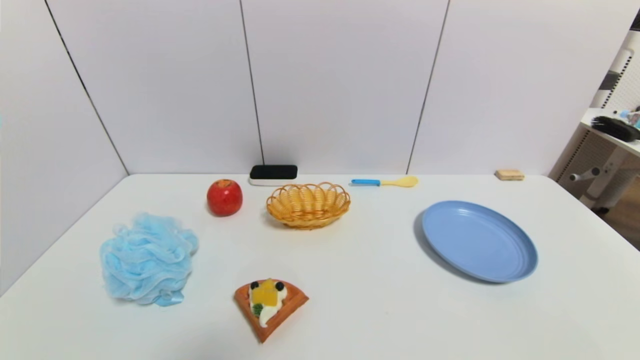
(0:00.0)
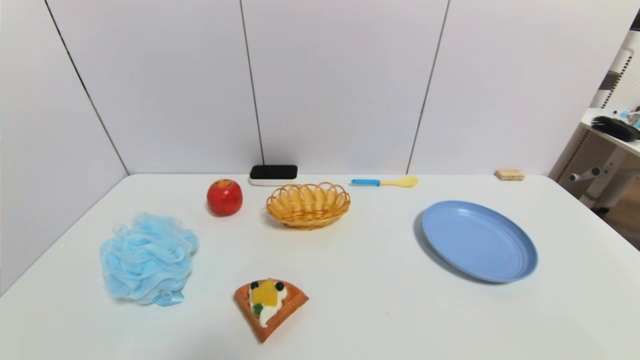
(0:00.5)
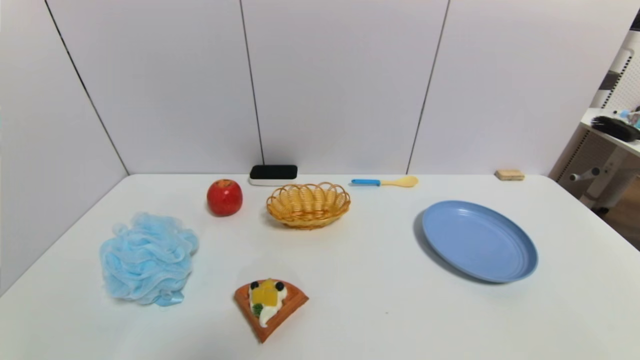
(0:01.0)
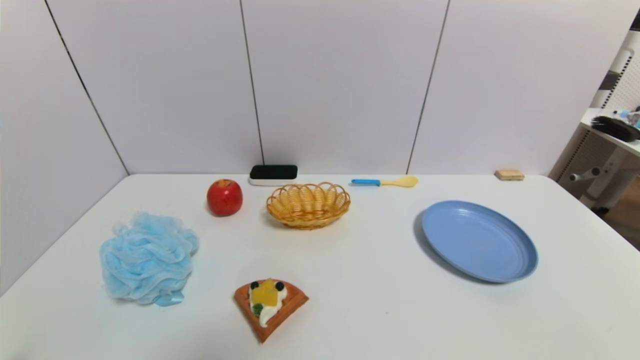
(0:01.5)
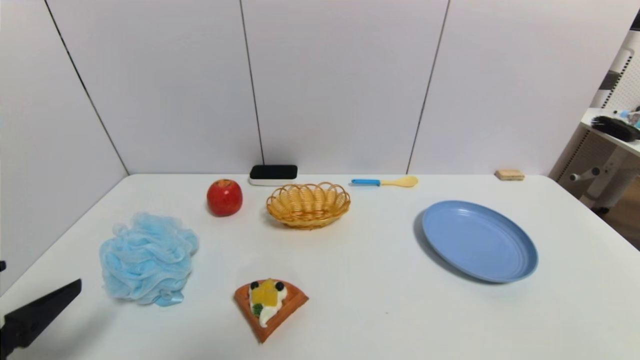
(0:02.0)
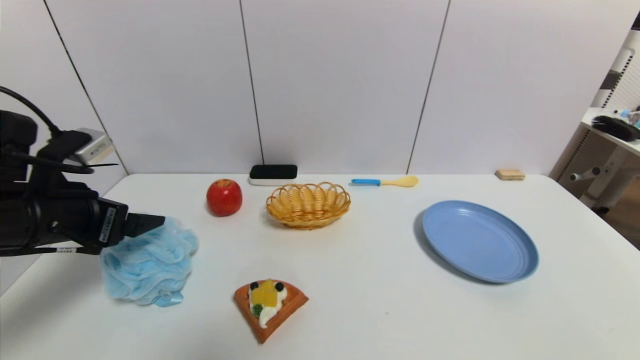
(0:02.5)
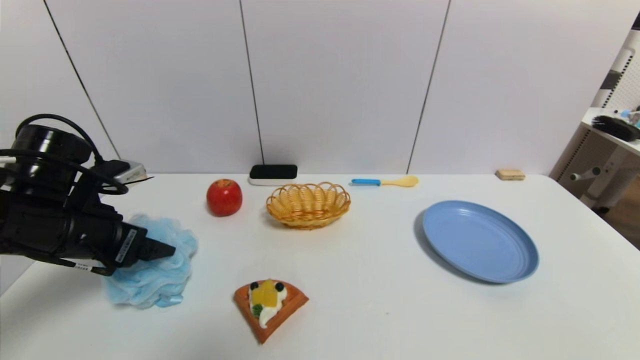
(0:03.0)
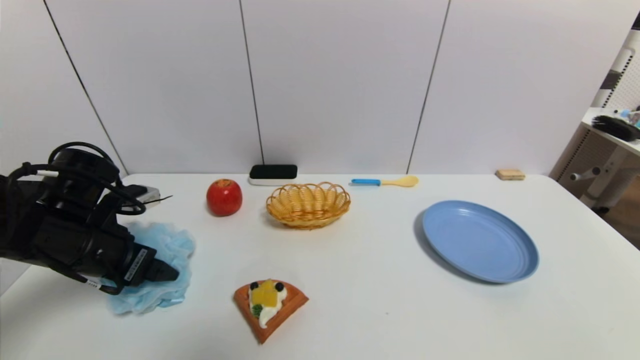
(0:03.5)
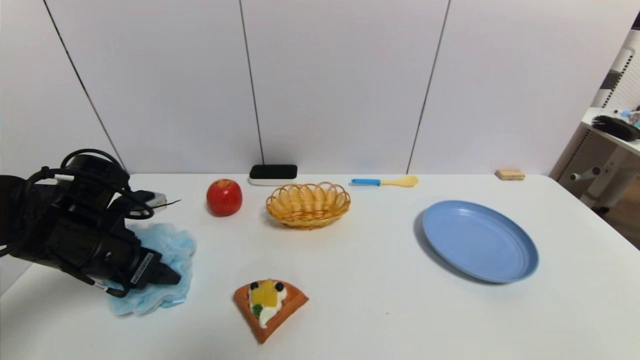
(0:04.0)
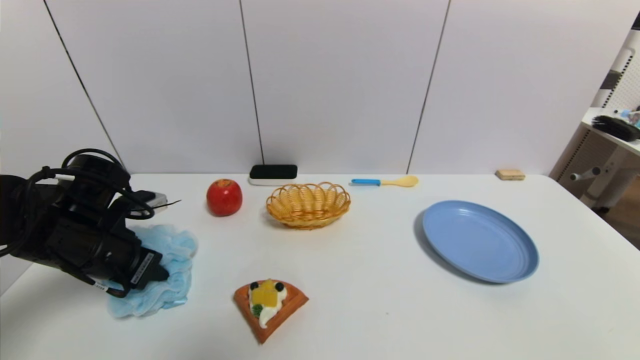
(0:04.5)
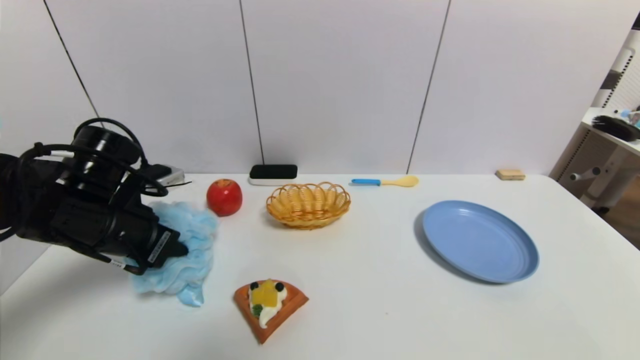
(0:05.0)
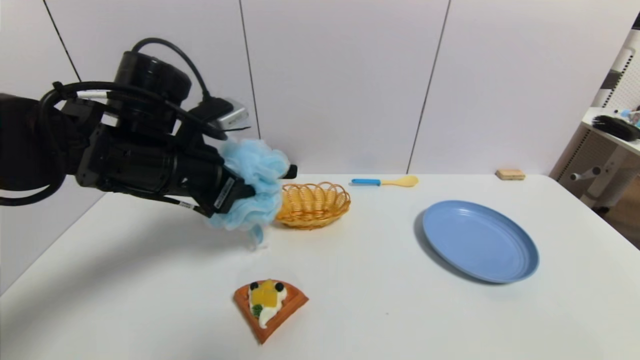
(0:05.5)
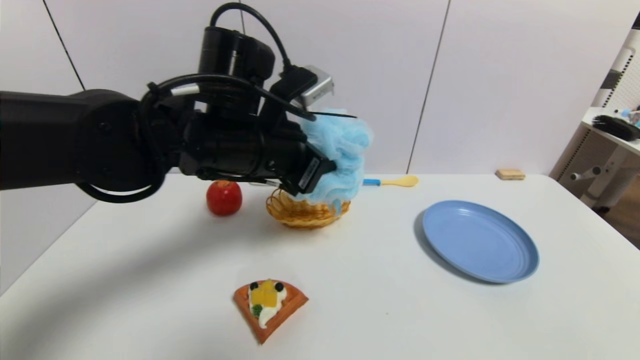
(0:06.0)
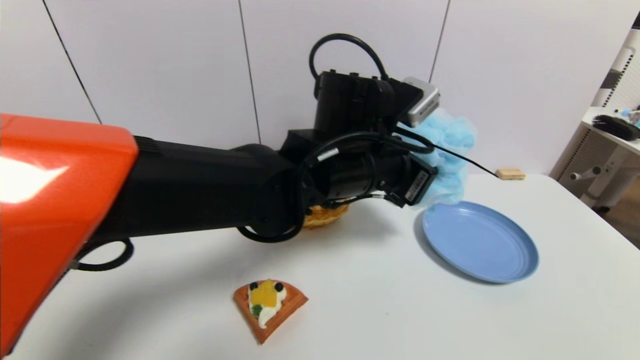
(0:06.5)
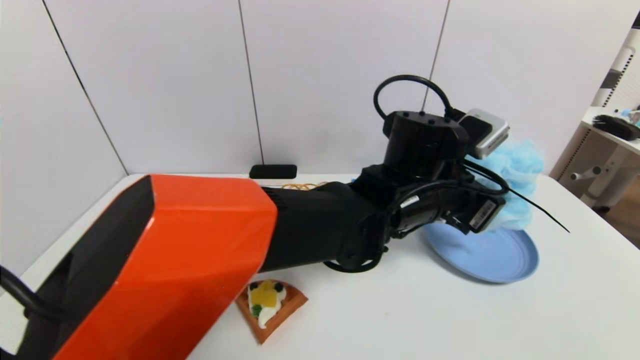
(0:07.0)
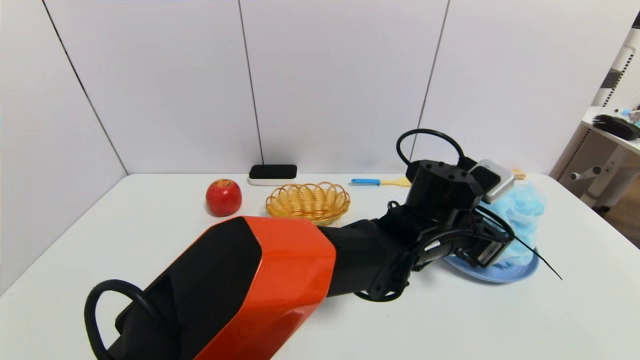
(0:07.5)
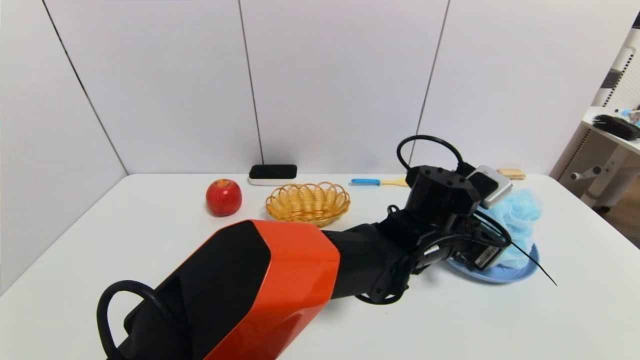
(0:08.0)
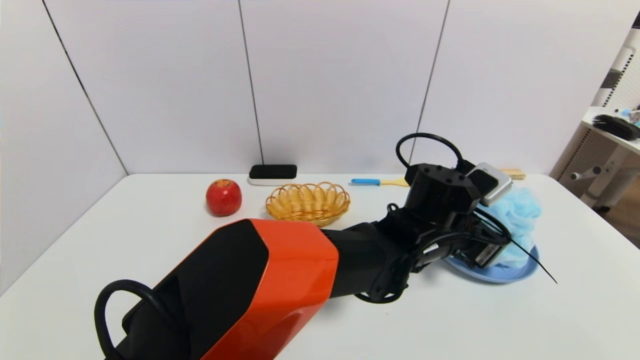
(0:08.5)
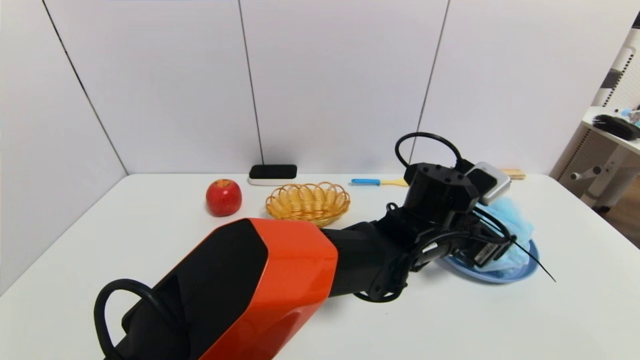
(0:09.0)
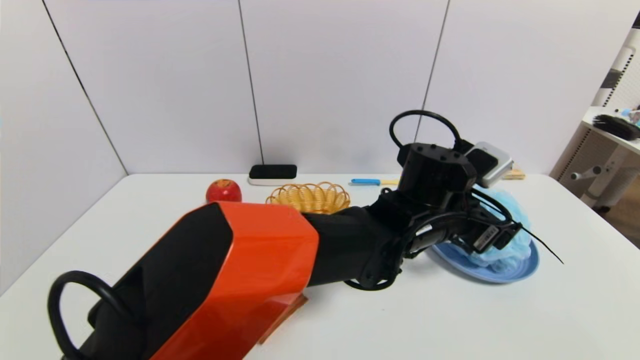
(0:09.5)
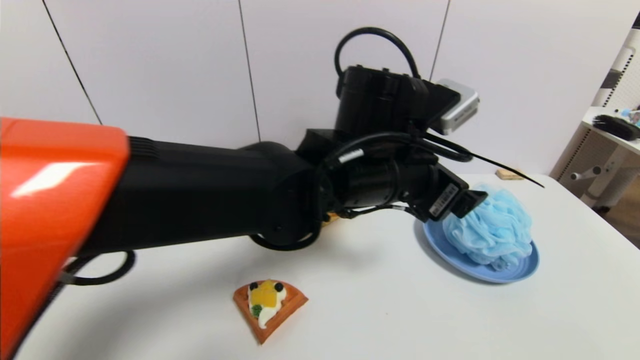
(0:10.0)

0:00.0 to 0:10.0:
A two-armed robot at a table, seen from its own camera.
Task of the whole recording: use a gripper to pick the target object and place on the blue plate.
Step, 0:00.0 to 0:04.5: Grasp the shower sphere with the left gripper.
0:00.0 to 0:02.0: The left gripper heads upward and forward, covering approximately 15 cm.
0:02.0 to 0:04.0: The left gripper travels forward by about 20 cm.
0:04.0 to 0:06.0: The left gripper is displaced to the right and upward by approximately 25 cm, and closes.
0:06.0 to 0:08.0: The left gripper shifts about 25 cm to the right and downward.
0:08.0 to 0:10.0: The left gripper is displaced upward and to the left by some 15 cm, and opens its fingers.

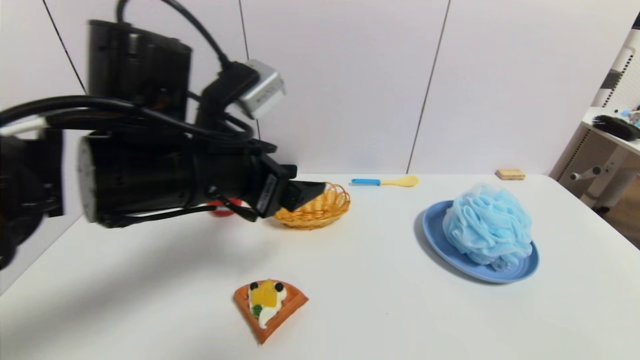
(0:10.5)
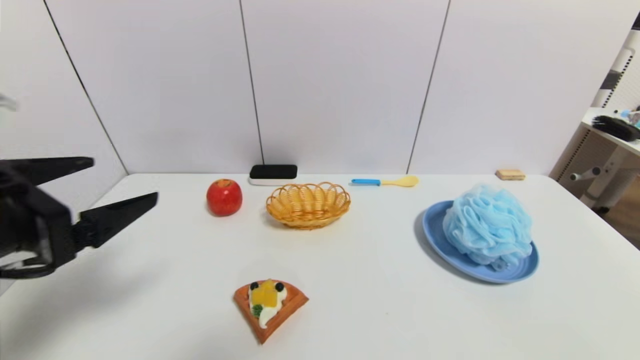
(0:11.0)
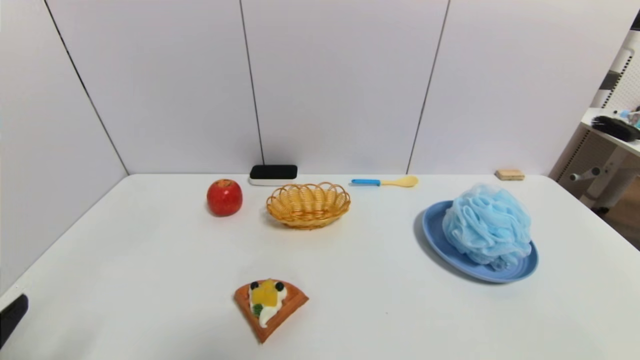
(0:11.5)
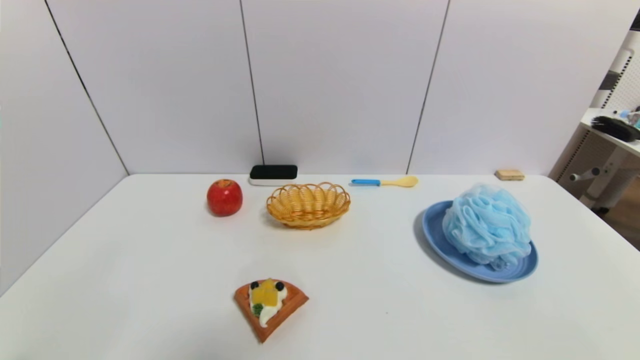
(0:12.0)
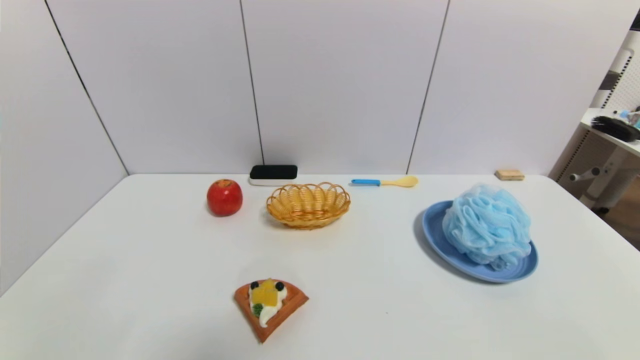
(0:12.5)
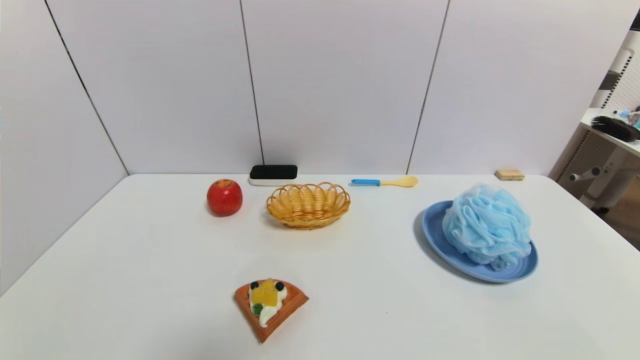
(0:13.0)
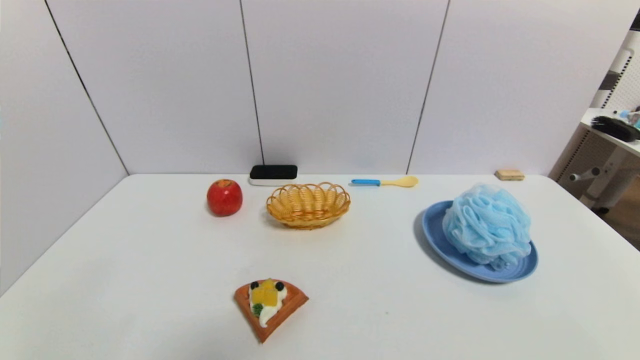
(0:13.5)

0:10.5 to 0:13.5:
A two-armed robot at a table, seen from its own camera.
Task of the whole recording: use a gripper to pick the target object and place on the blue plate.
0:10.5 to 0:12.0: The left gripper heads backward, downward and to the left, covering about 35 cm.
